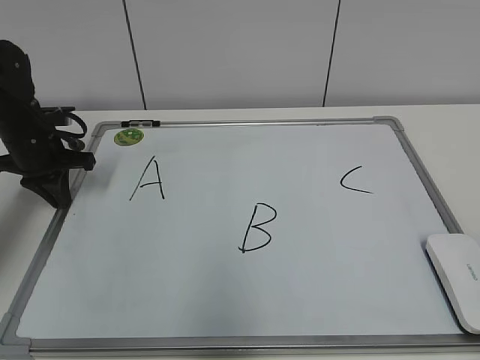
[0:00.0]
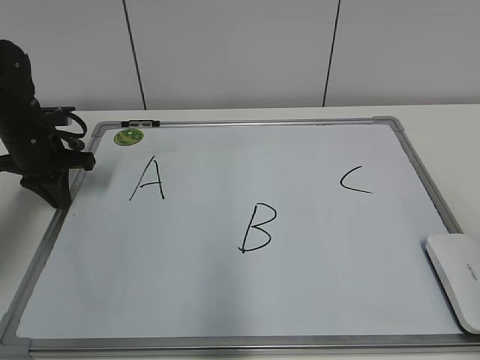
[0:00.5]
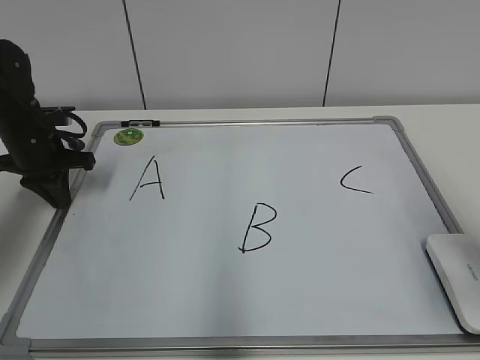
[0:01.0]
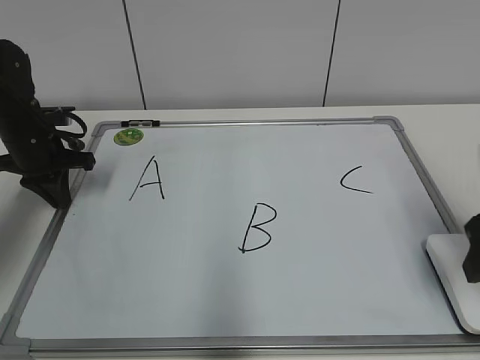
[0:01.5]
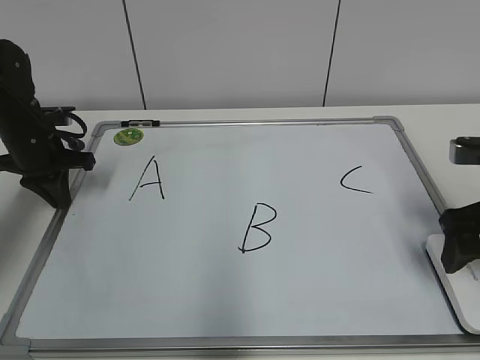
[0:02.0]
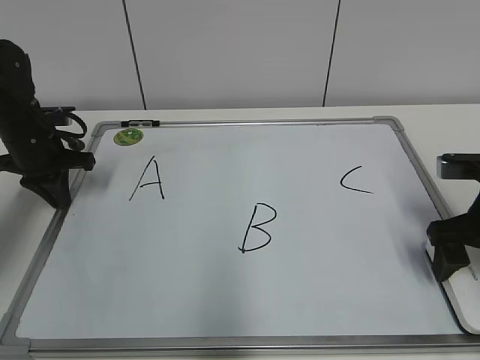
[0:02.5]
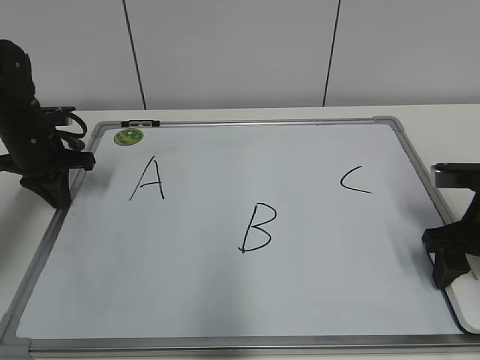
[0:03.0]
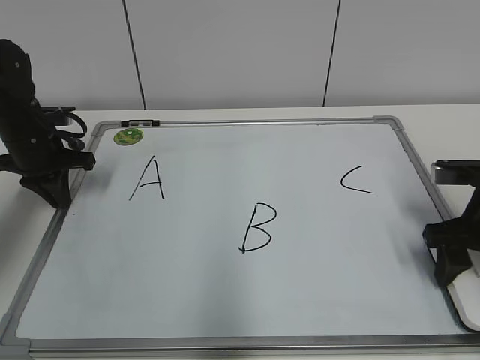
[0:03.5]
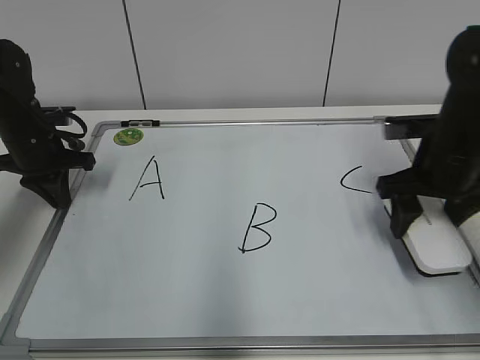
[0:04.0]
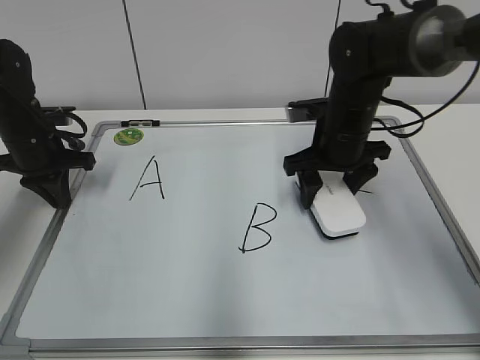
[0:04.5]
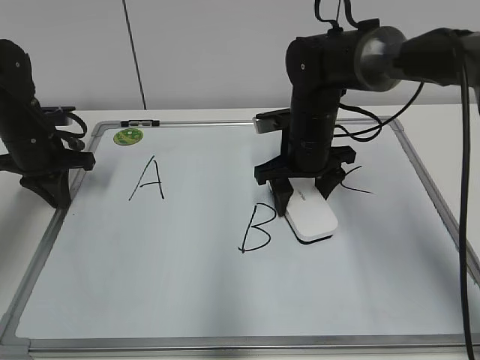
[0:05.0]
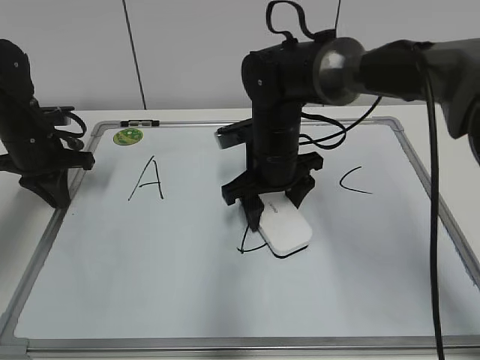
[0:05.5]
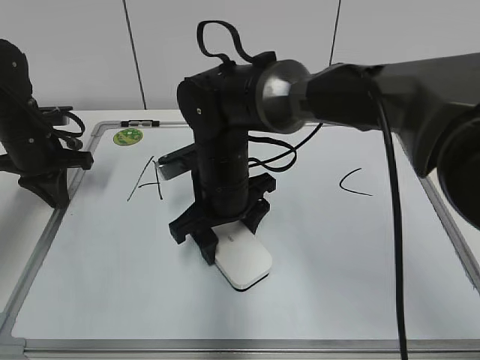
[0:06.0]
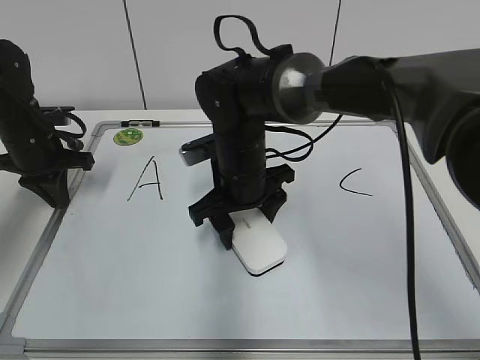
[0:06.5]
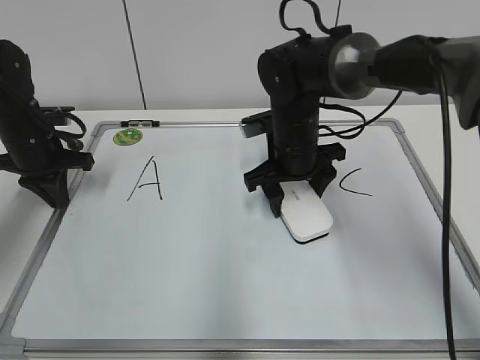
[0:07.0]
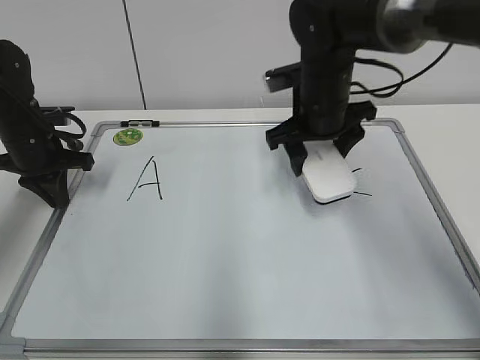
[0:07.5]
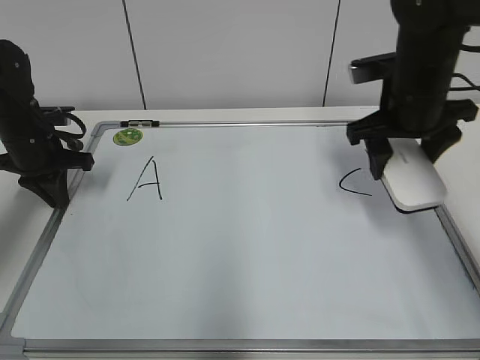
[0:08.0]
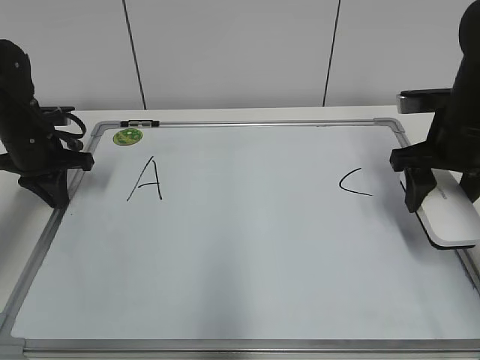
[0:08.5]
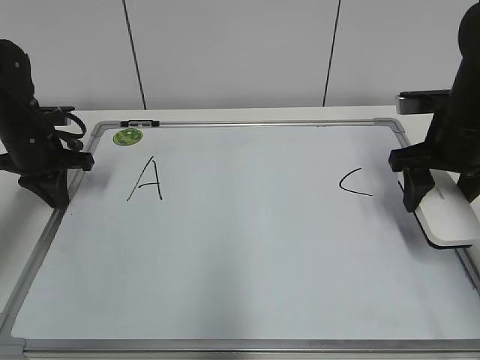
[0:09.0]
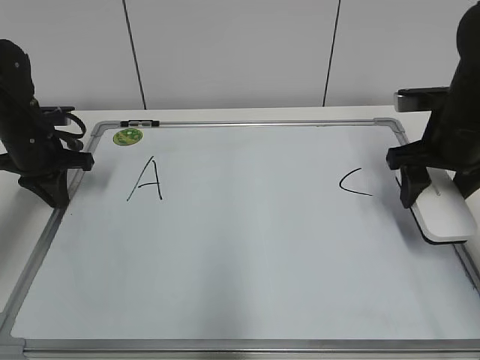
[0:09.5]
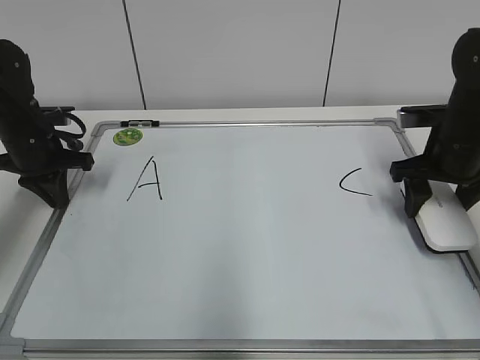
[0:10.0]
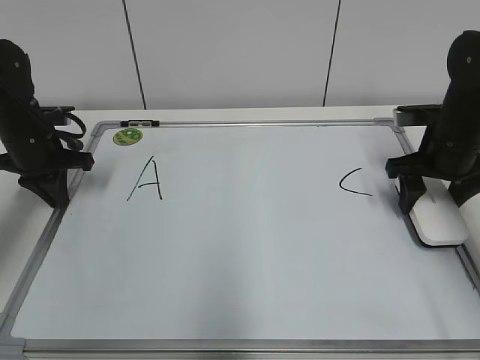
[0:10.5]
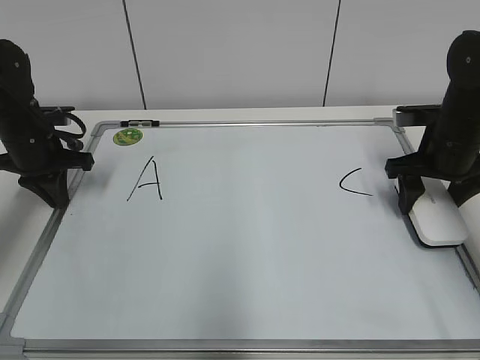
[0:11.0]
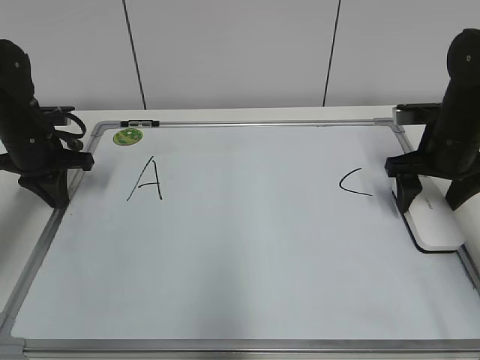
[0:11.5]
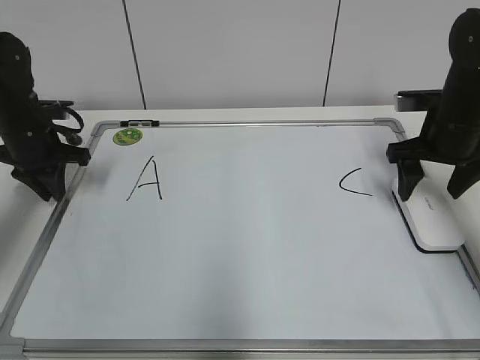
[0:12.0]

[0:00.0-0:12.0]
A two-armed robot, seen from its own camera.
Task of the whole recording: pick up the eraser on the blackboard and erase the letter "B".
Step, 0:00.0 to 0:03.0: Grab the eraser with your right hand.
Step, 0:03.5 to 0:07.0: Erase the letter B with your right hand.
Step, 0:07.5 to 0:11.0: Put down the eraser with your right hand.
0:00.0 to 0:02.0: The right gripper is displaced forward by roughly 30 cm, and opens.
0:02.0 to 0:04.0: The right gripper is displaced forward by some 5 cm, and closes.
0:04.0 to 0:06.0: The right gripper is displaced to the left by about 25 cm.
0:06.0 to 0:08.0: The right gripper heads to the right and upward, covering about 25 cm.
0:08.0 to 0:10.0: The right gripper shifts approximately 10 cm to the right and downward.
0:10.0 to 0:12.0: The right gripper opens.

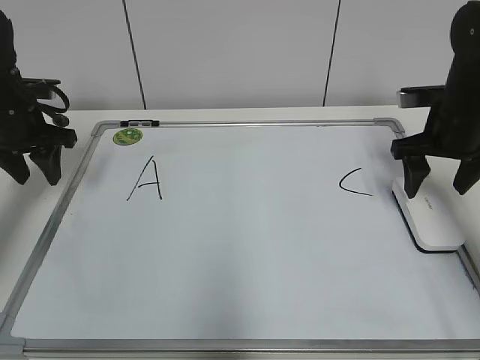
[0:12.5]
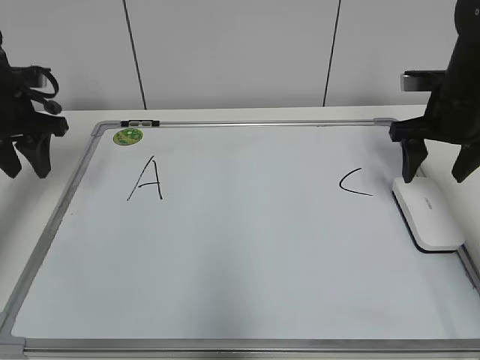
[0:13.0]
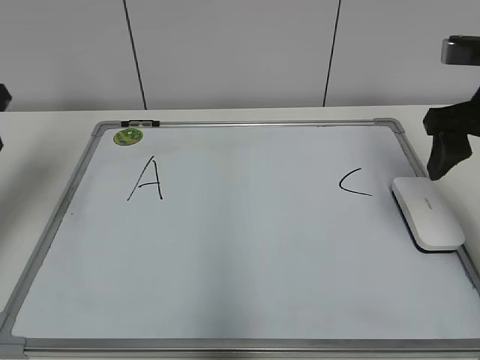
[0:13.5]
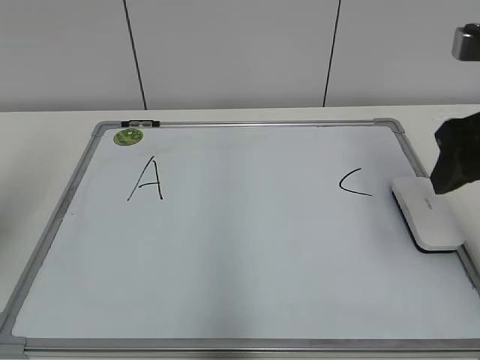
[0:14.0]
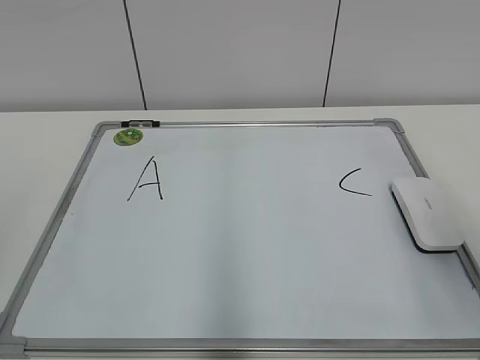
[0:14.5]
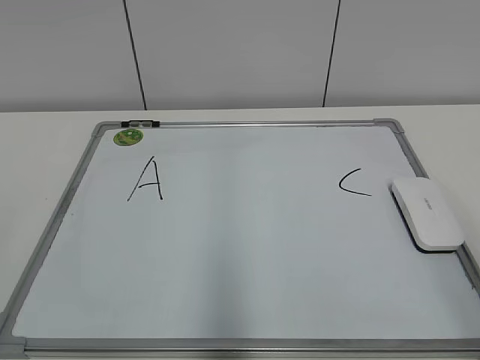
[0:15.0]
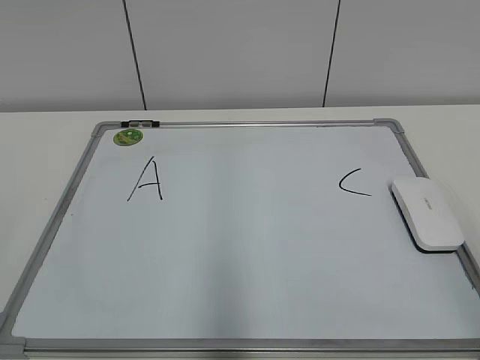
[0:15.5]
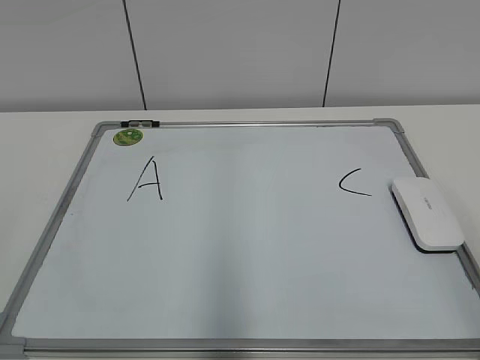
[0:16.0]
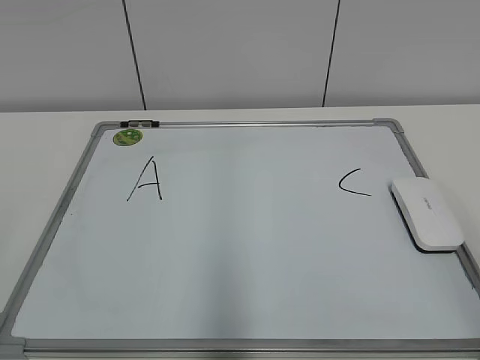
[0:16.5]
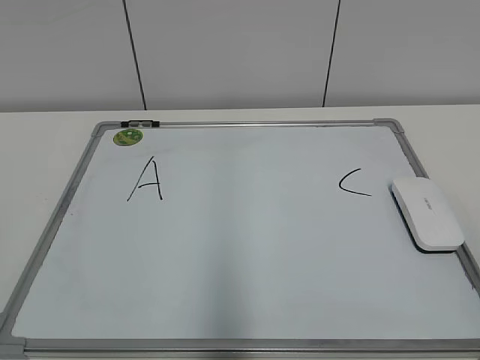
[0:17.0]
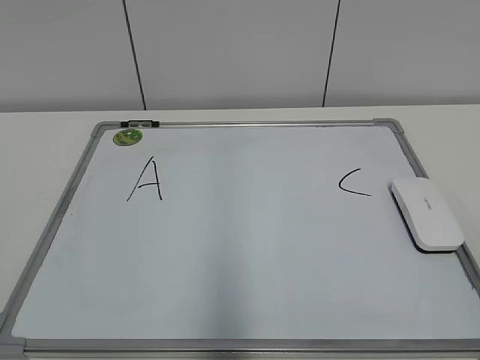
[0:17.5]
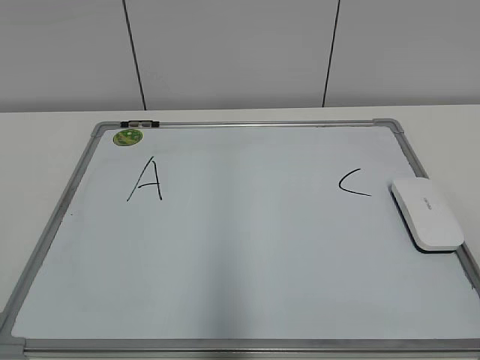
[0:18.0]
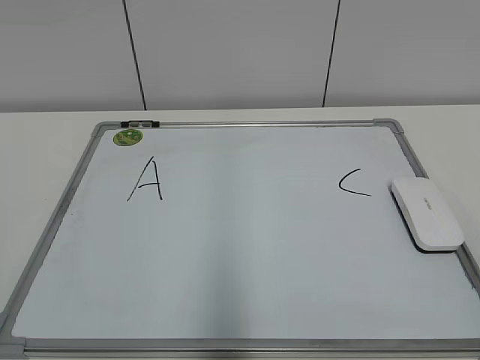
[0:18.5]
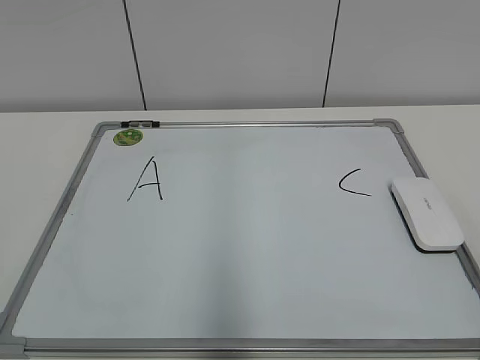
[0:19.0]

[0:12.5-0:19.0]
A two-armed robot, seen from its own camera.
Task of the whole recording: pick up the eraser on the blackboard and erase the letter "B".
0:12.5 to 0:14.5: Both grippers move backward, approximately 30 cm.
0:14.5 to 0:17.0: The right gripper goes approximately 15 cm backward.
